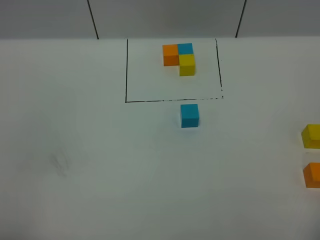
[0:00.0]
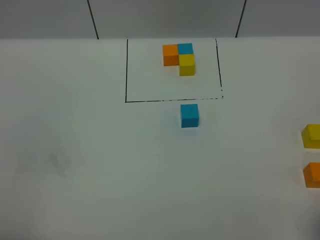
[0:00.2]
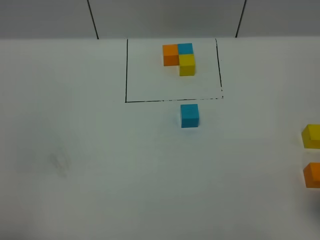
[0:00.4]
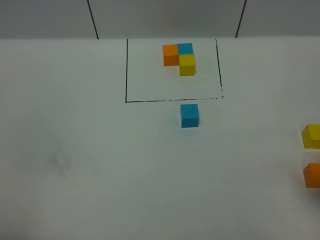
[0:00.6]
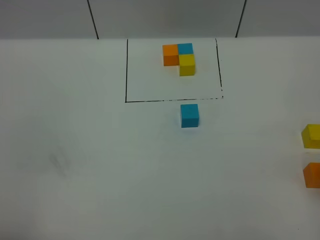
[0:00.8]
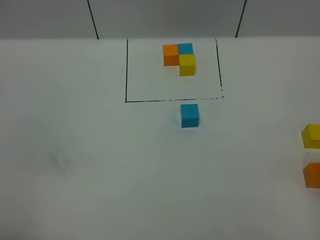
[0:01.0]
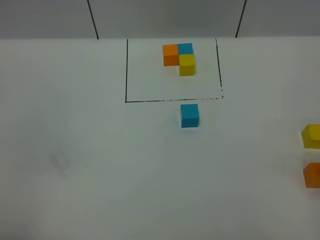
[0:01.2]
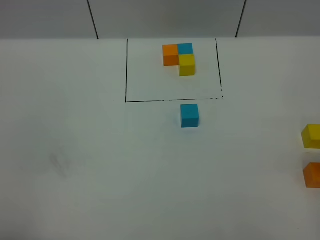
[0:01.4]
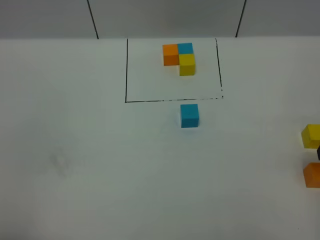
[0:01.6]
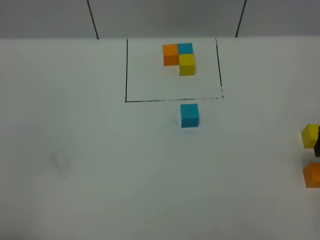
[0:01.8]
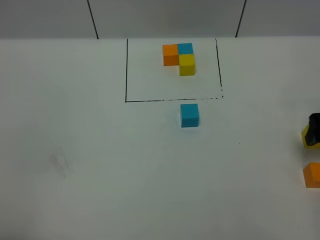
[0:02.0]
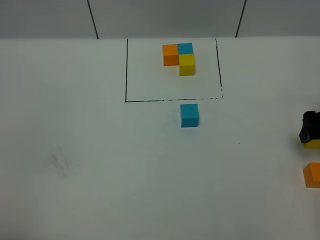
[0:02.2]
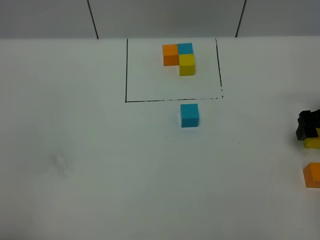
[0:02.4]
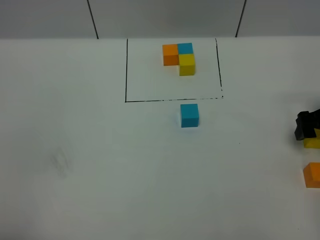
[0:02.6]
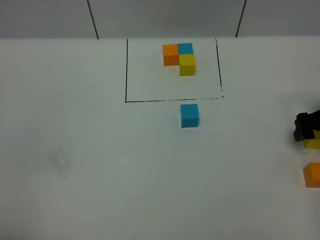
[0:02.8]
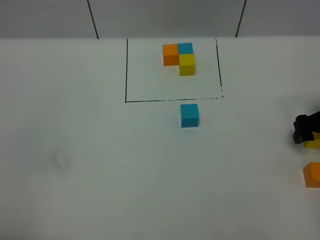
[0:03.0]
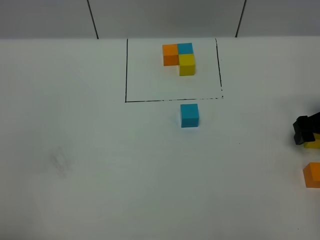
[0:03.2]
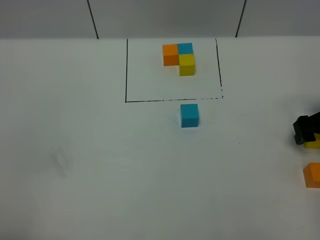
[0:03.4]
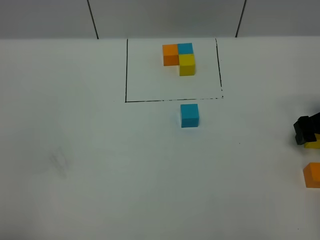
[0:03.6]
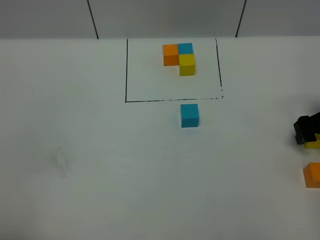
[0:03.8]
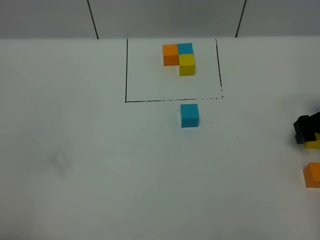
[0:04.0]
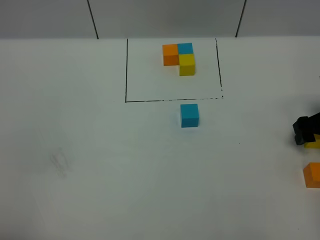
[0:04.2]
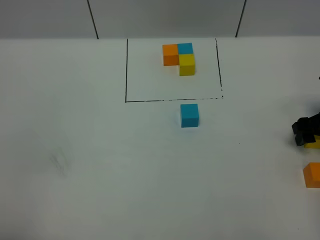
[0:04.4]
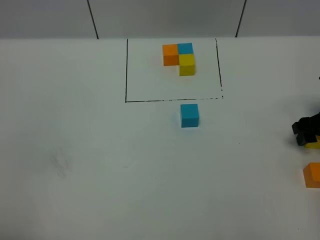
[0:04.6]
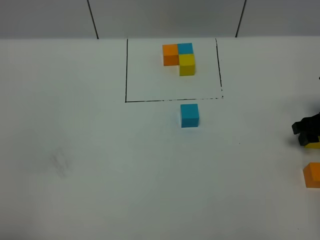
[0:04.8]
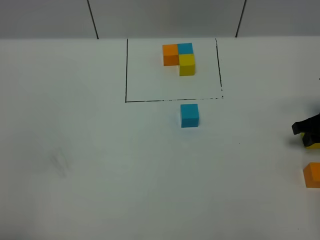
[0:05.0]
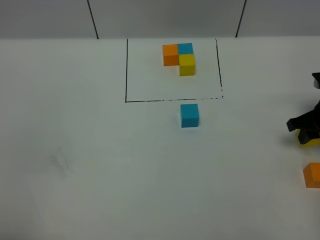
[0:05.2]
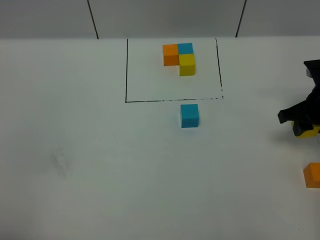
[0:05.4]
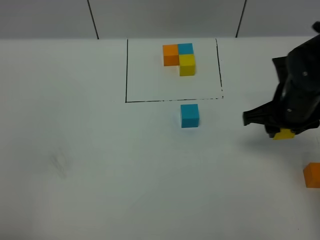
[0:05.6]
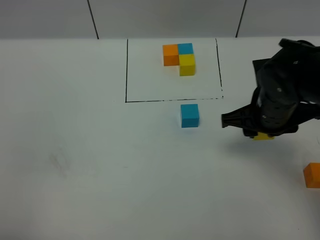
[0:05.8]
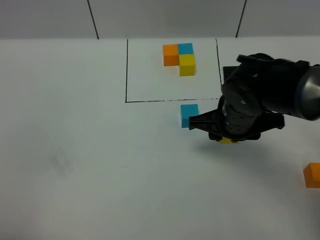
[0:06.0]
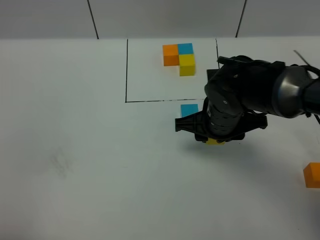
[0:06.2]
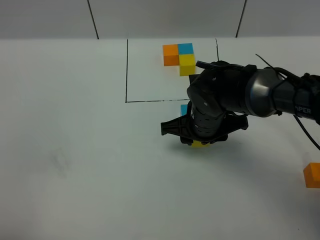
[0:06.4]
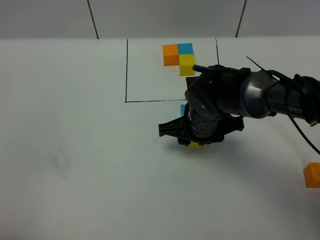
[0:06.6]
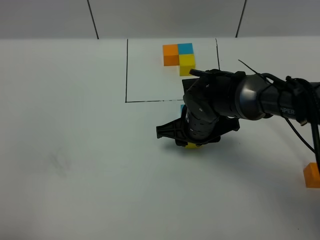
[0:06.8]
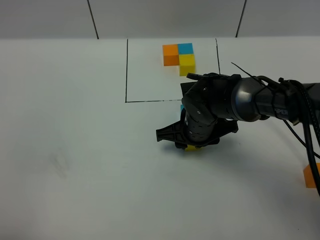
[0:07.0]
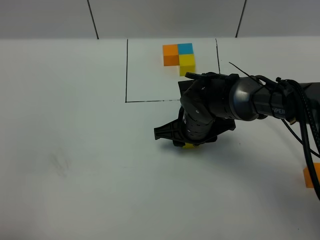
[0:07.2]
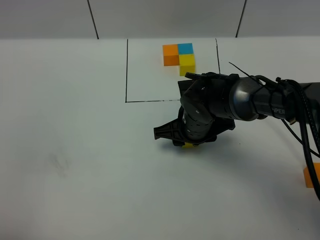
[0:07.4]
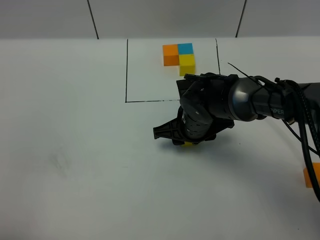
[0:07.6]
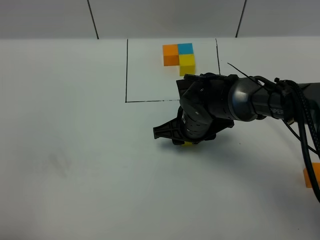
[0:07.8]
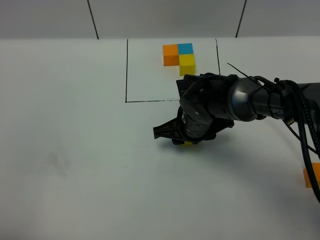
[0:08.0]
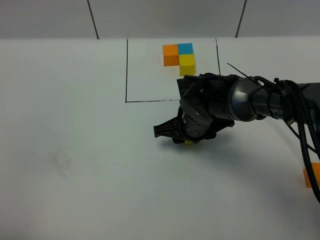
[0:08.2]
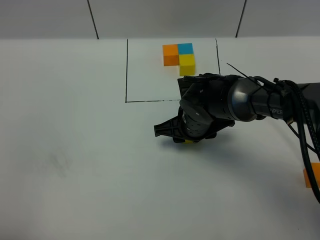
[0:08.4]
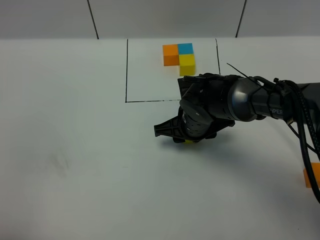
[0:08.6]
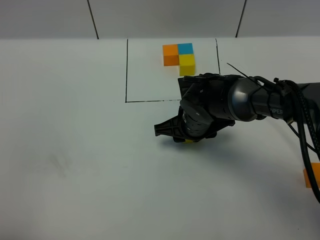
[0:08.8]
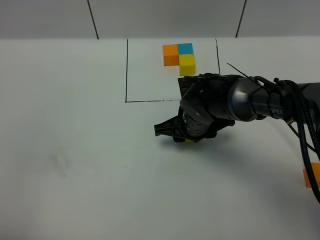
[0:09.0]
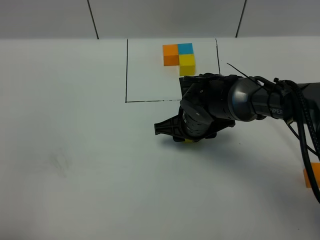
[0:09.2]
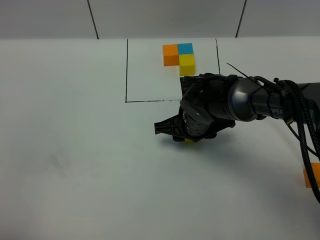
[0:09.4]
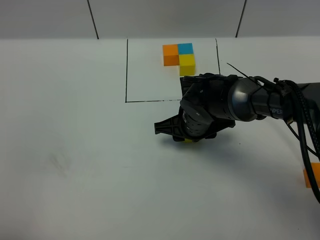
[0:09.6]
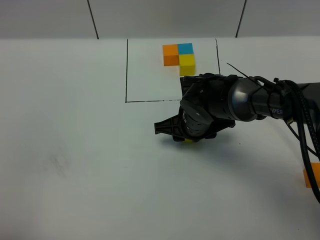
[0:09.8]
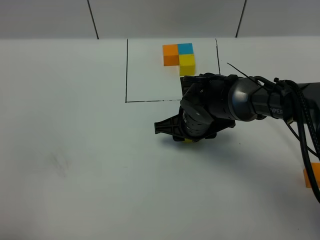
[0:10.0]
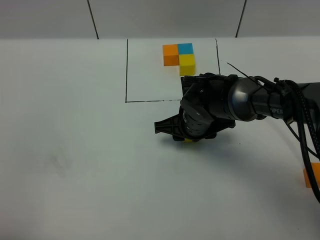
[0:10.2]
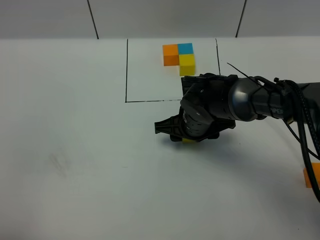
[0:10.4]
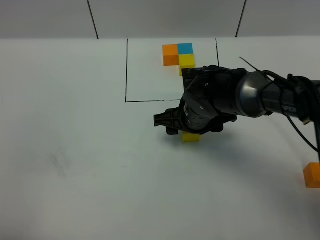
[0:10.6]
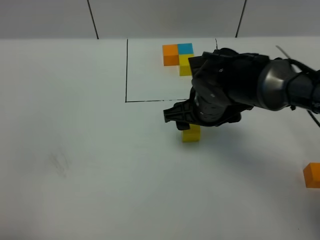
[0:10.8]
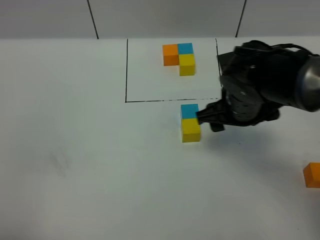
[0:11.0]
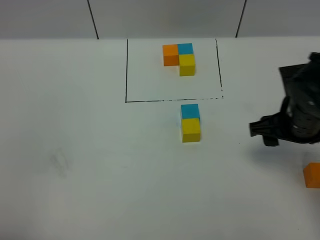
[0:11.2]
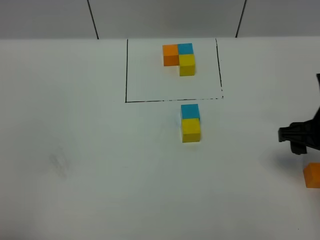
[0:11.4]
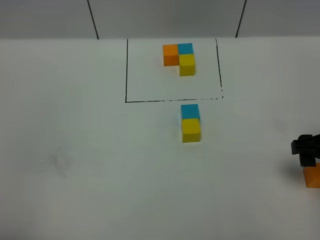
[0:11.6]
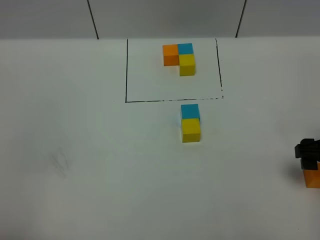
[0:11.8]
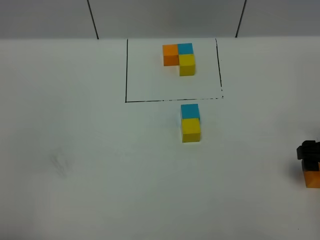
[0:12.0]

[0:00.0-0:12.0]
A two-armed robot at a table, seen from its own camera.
Task of the whole recording: According to the building block template in front, assemble the scattered blocks together.
Step, 0:00.0 to 0:10.2: Put the yellow build block on the behind of the blue build block.
0:01.6 to 0:03.0: The right gripper heads downward and forward, covering about 15 cm.
0:03.0 to 0:04.4: The two grippers keep their place.
0:04.4 to 0:06.0: The right gripper moves to the left, approximately 25 cm, and closes its fingers.
0:06.0 to 0:07.6: The right gripper heads downward and to the left, covering roughly 10 cm.
0:07.6 to 0:09.0: The two grippers keep their place.
0:09.0 to 0:10.4: Both grippers stay about where they are.
0:10.4 to 0:12.0: The right gripper goes roughly 25 cm to the right, and opens.

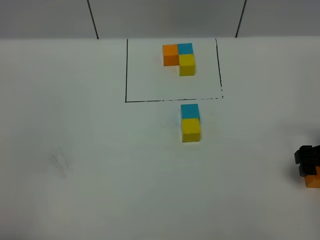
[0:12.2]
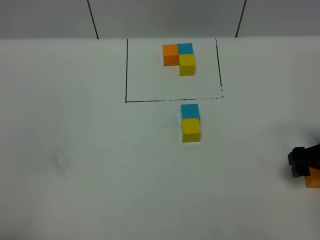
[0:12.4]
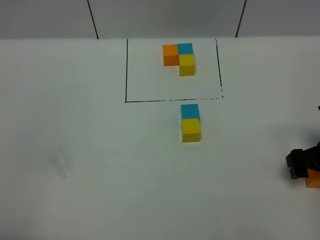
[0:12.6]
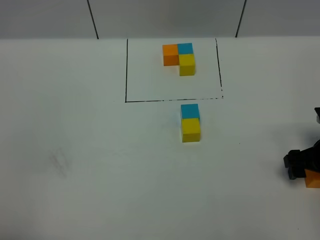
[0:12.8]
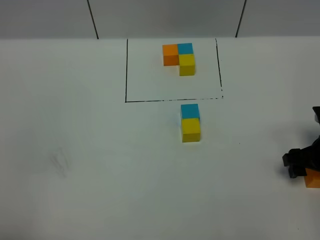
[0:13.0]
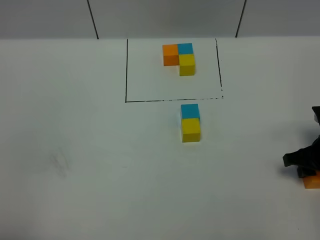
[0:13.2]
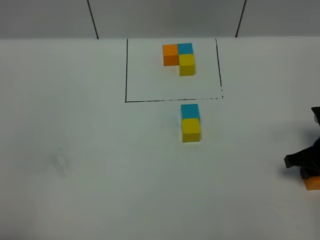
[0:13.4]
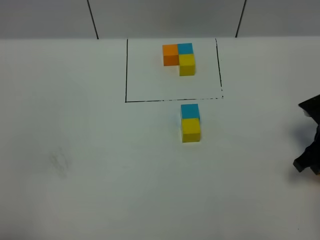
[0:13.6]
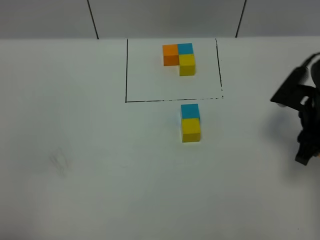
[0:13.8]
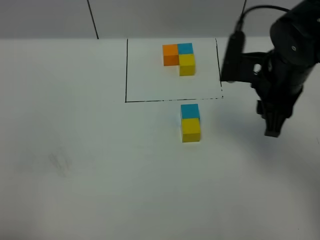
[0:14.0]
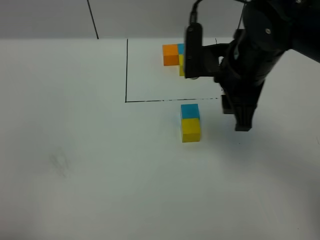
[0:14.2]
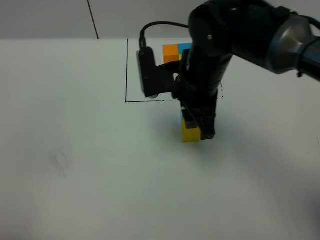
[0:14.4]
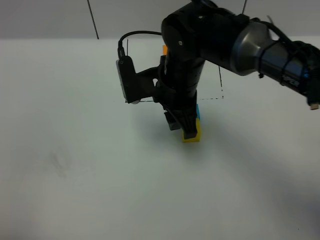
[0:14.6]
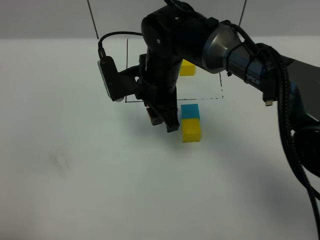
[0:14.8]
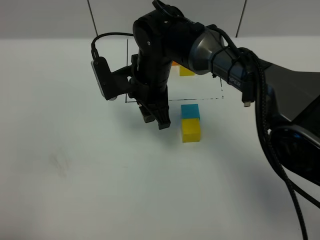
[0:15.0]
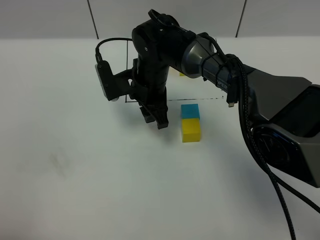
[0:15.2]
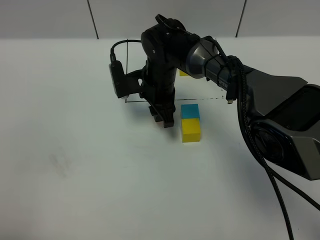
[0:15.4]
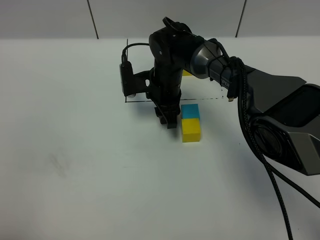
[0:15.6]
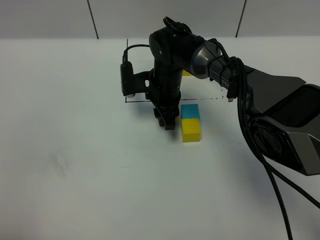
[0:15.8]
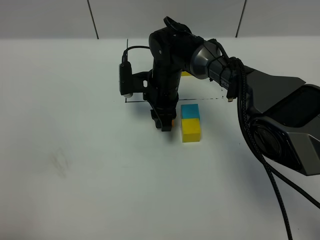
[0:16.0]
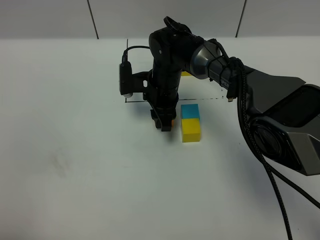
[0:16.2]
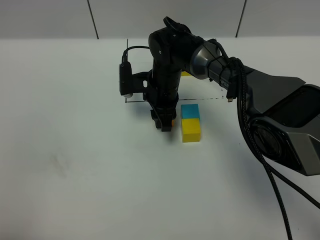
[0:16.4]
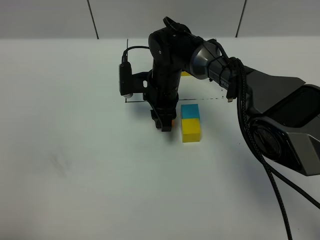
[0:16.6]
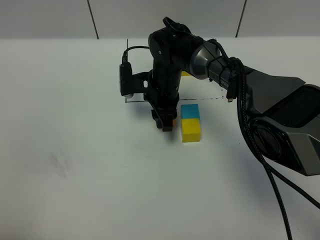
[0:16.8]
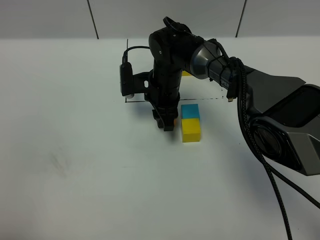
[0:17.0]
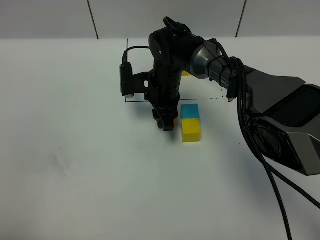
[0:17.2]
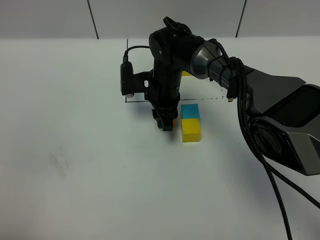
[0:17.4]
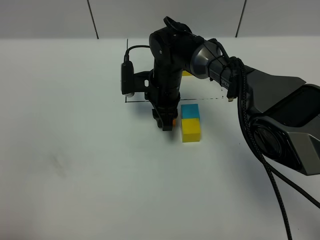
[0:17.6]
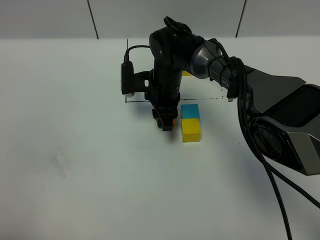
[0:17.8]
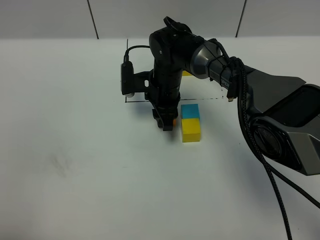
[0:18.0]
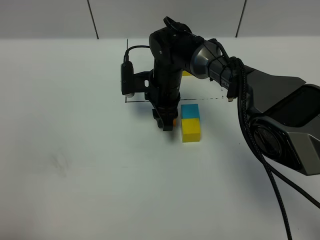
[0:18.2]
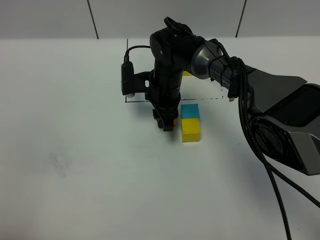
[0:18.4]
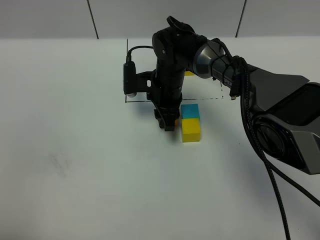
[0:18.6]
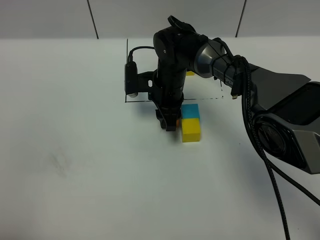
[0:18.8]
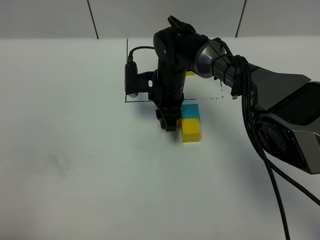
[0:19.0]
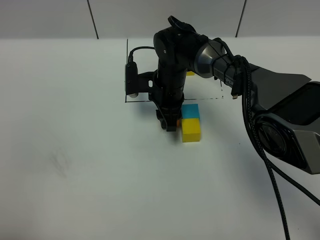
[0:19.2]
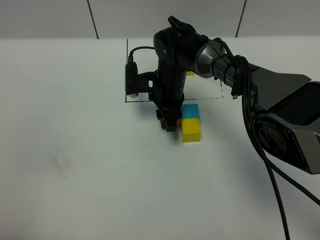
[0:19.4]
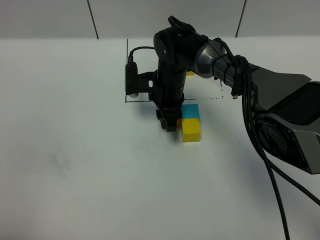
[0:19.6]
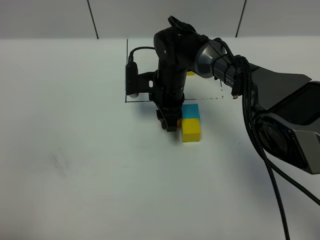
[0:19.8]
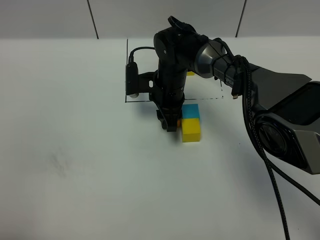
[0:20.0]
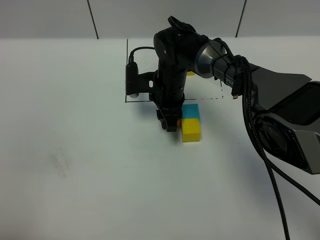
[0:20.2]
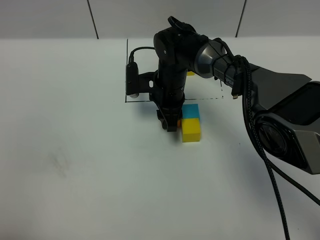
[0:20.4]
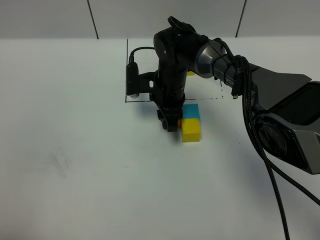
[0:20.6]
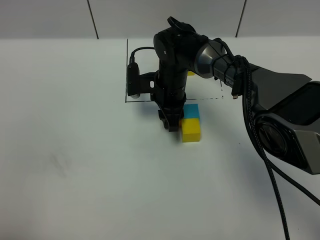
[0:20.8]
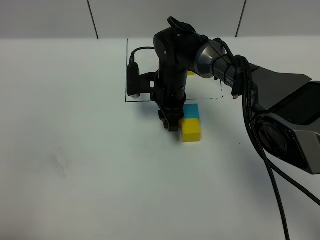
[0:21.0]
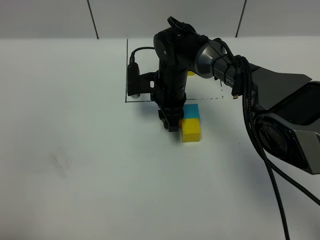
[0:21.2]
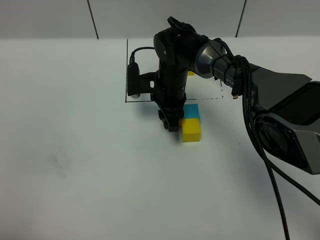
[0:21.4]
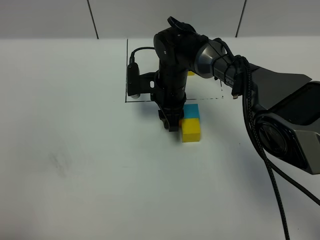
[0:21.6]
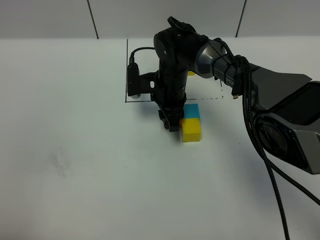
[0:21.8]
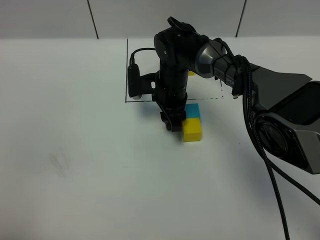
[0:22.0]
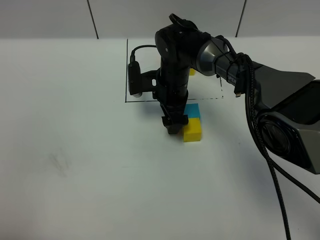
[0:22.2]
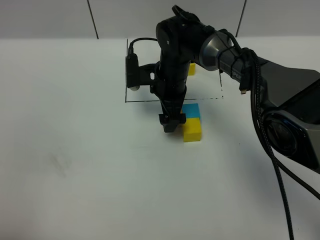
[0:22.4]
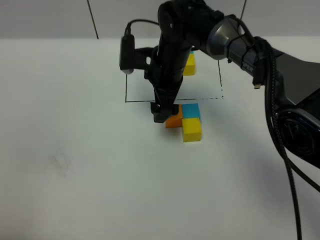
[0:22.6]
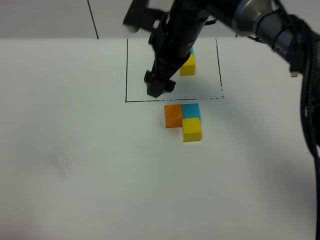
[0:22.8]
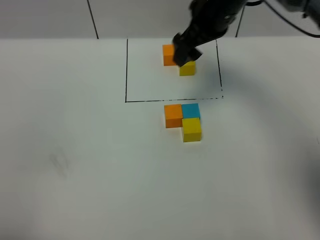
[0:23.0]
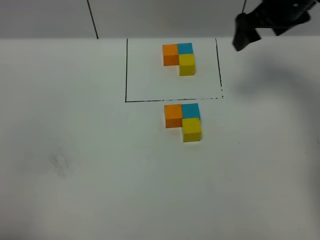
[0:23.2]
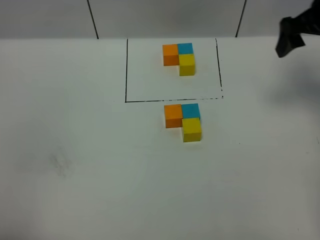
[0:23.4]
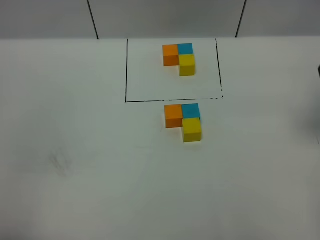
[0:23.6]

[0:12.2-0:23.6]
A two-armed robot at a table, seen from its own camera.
Task of the whole recording: According to the building block template in front, assemble the scattered blocks together.
0:12.2 to 0:13.6: The right gripper closes up.
0:13.6 to 0:15.0: The right gripper goes approximately 30 cm to the left.
0:15.0 to 0:16.4: The right gripper heads downward, covering roughly 5 cm.
0:16.4 to 0:20.8: Both grippers stay about where they are.
0:20.8 to 0:22.2: The right gripper opens its fingers.
0:22.2 to 0:23.6: The right gripper shifts approximately 40 cm to the right, upward and backward.
